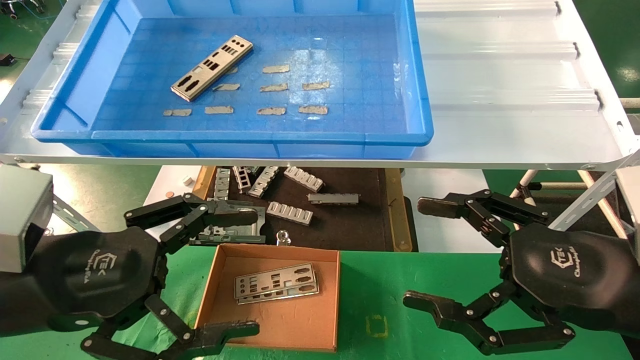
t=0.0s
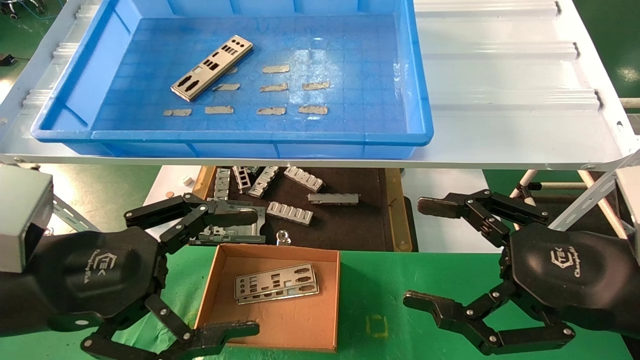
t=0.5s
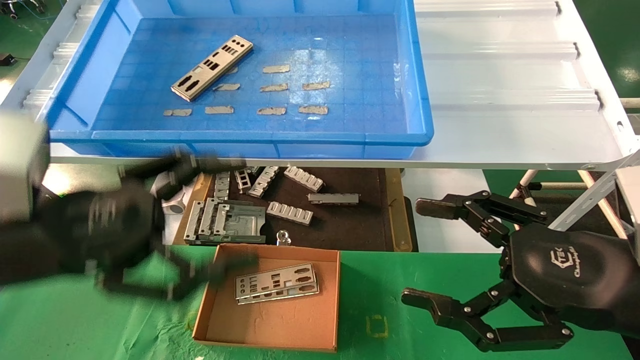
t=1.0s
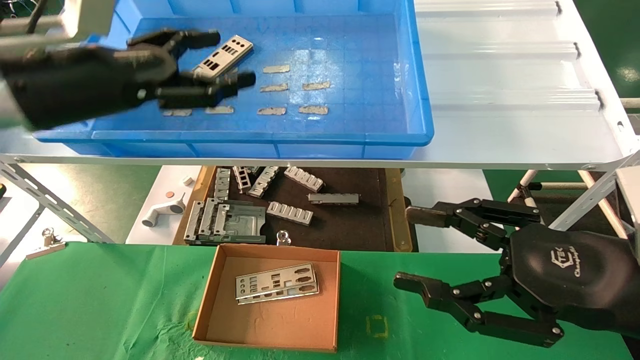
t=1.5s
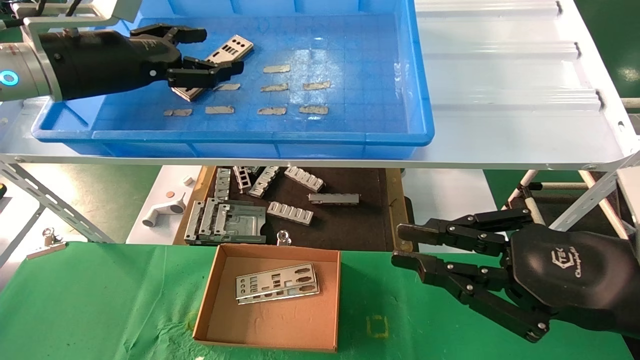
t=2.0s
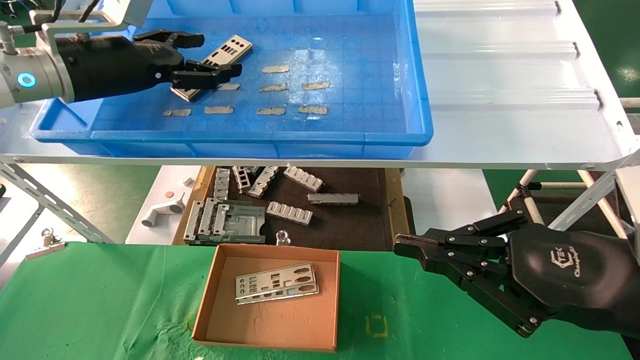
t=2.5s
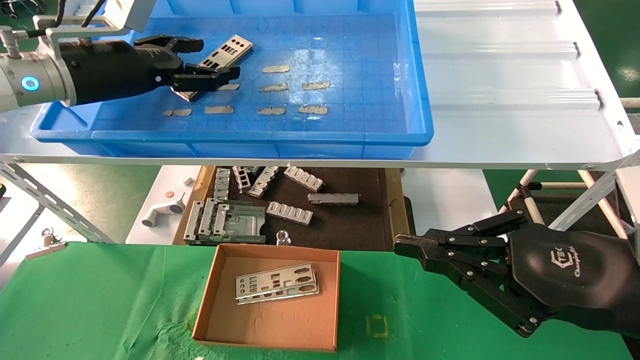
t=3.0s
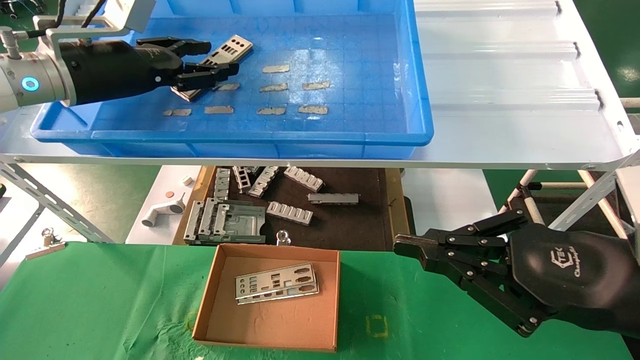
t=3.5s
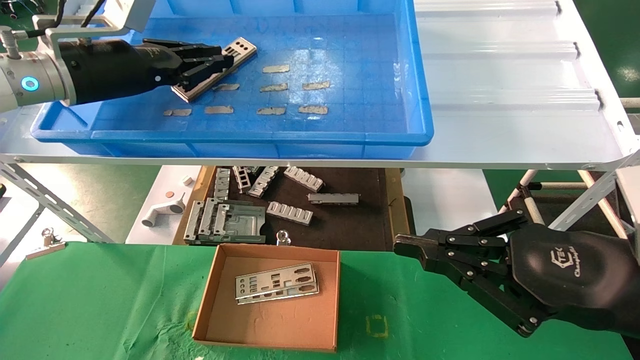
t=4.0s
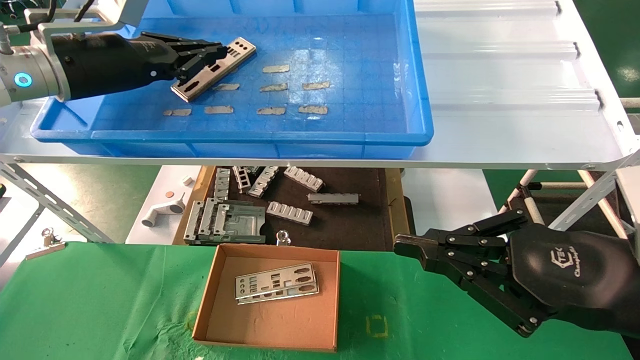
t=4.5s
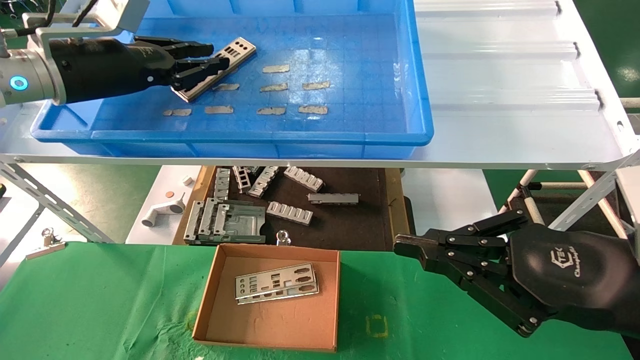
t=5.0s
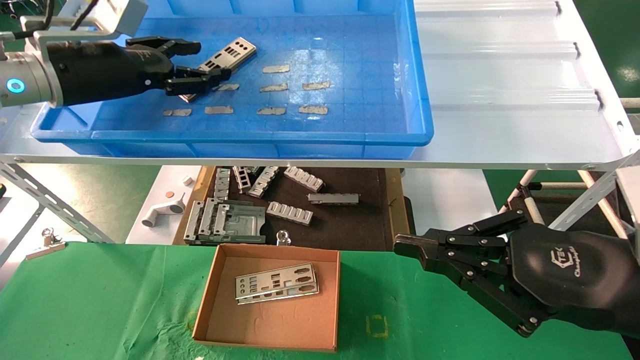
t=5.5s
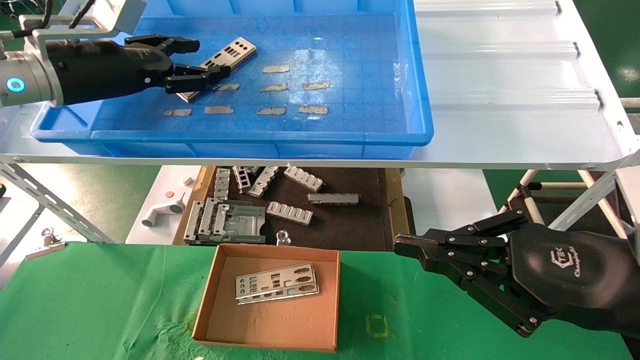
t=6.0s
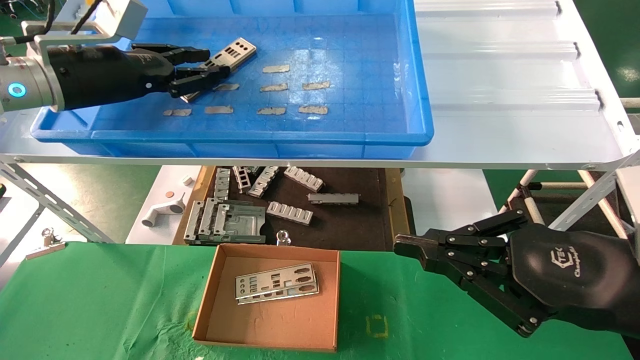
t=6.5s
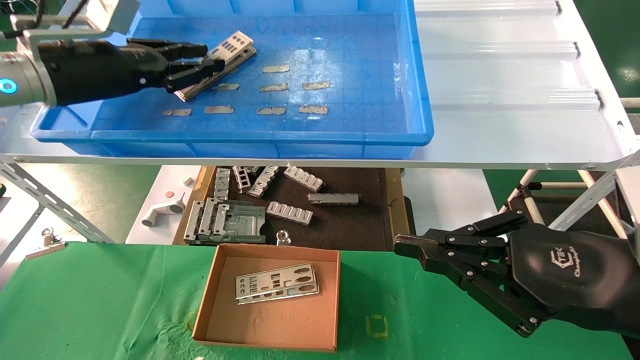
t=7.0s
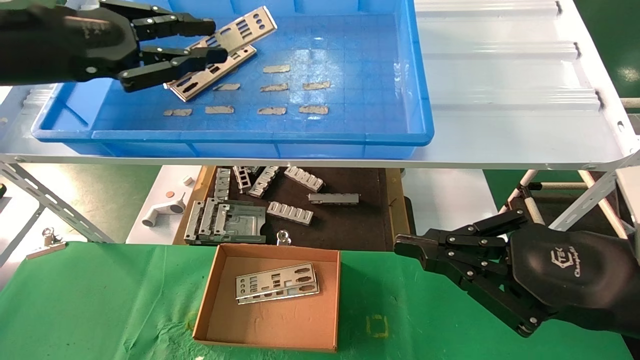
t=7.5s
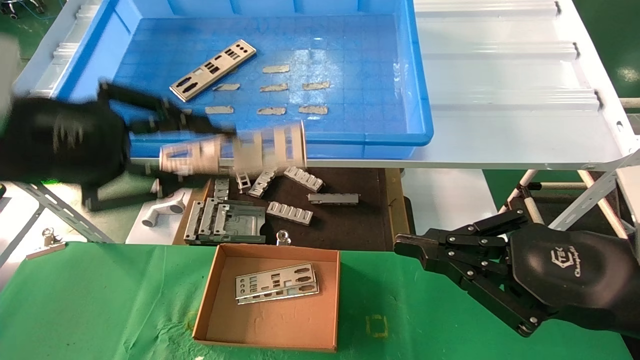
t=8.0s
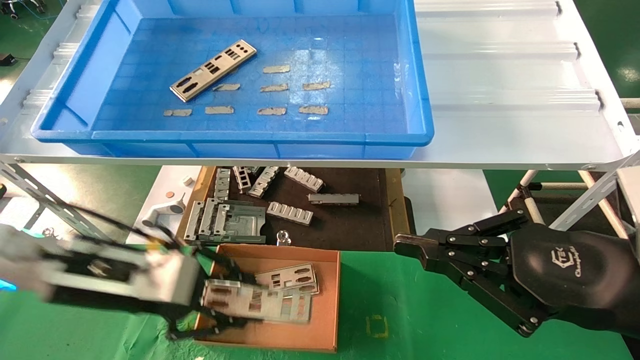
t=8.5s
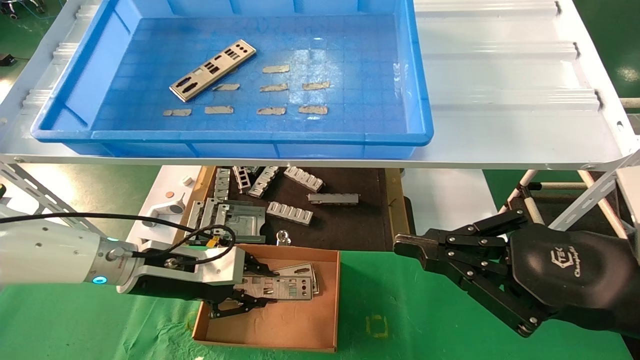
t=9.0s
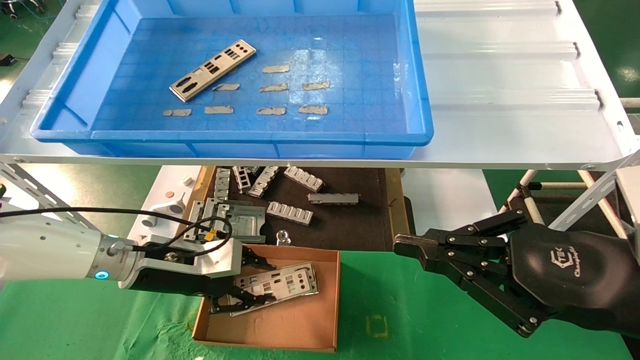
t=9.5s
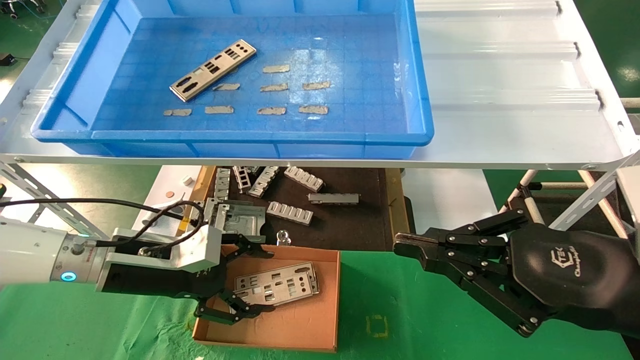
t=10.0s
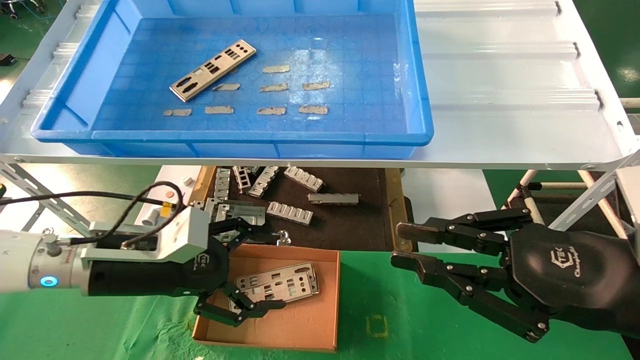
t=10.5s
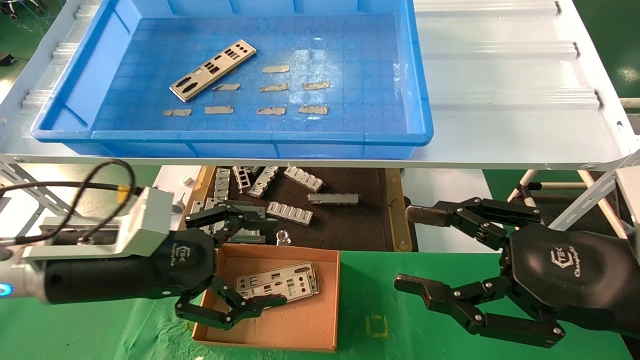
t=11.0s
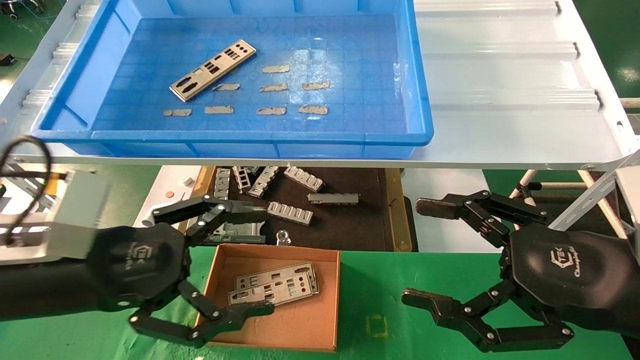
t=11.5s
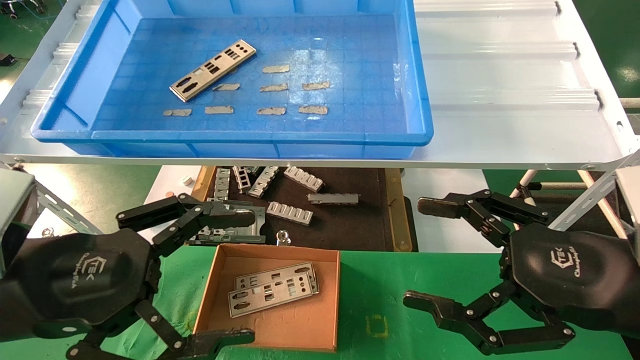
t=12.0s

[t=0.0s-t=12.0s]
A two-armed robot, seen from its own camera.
Task of the whole recording: pick up the parts on the tray and put them in the cardboard box.
Step, t=1.5s to t=6.5s: Pick up the IO bracket from the container box.
Step, t=7.0s to t=9.5s: Place the IO bracket into the ingredient slot.
t=0.0s to t=2.0s: The right gripper closes up; the left gripper goes some 25 cm forward and upward.
t=2.0s to t=4.0s: The left gripper closes up.
t=4.0s to t=6.0s: The left gripper opens.
t=6.0s to t=8.0s: The left gripper heads backward, covering some 15 cm, and closes up.
t=8.0s to t=10.0s: The left gripper goes about 20 cm downward and forward, and opens.
t=10.0s to t=12.0s: The left gripper travels backward and upward by approximately 20 cm, and opens; the right gripper opens up.

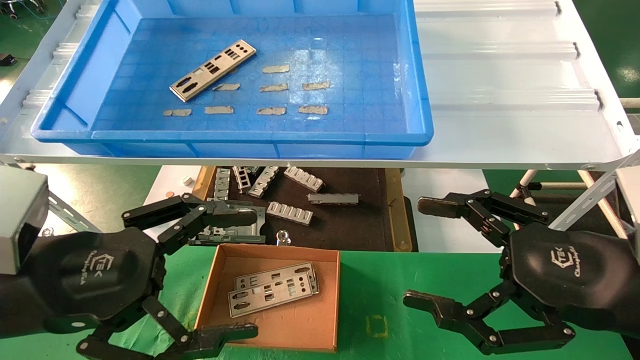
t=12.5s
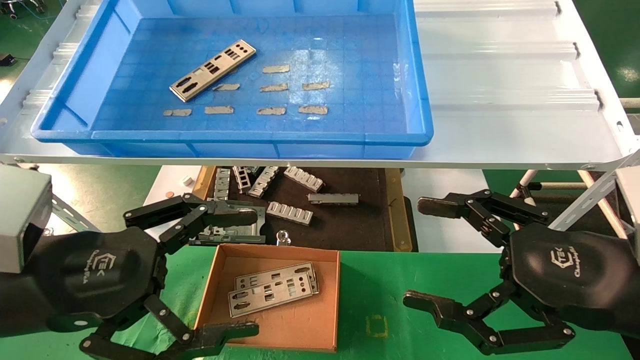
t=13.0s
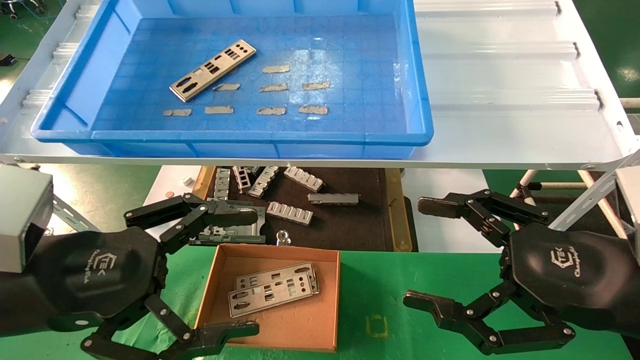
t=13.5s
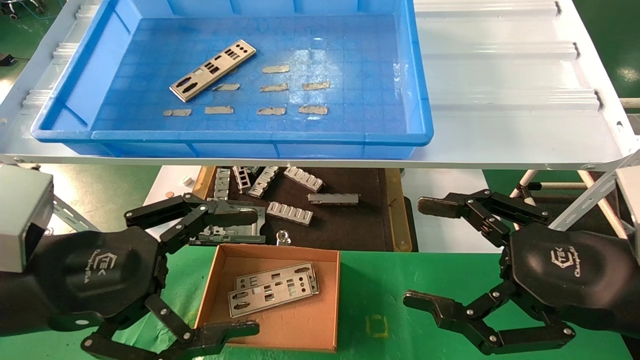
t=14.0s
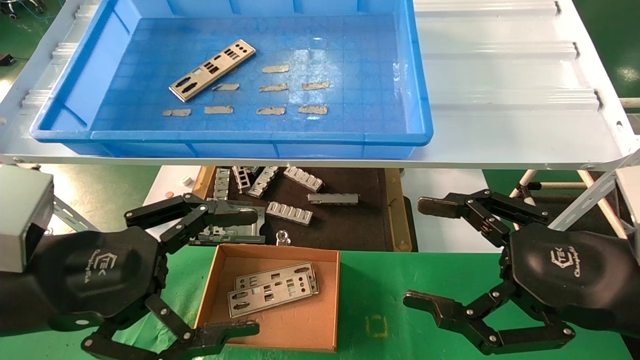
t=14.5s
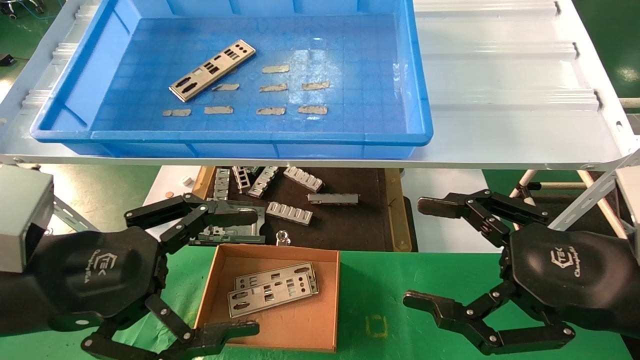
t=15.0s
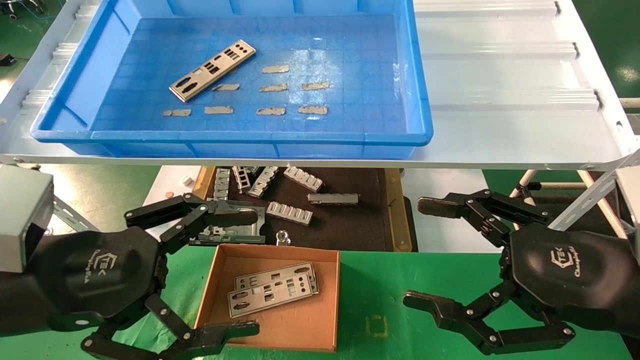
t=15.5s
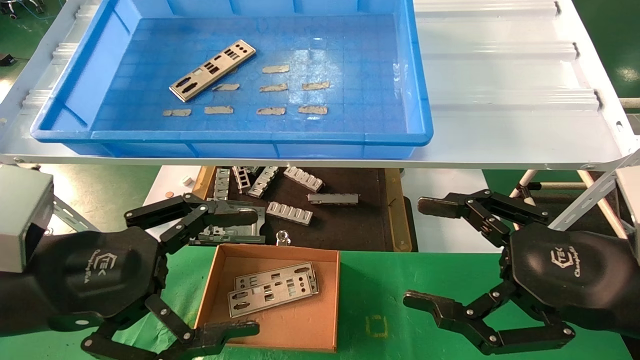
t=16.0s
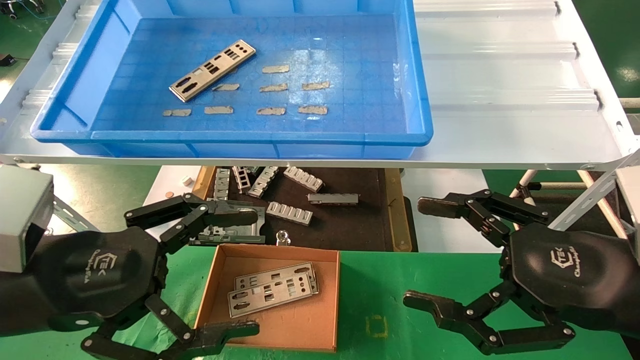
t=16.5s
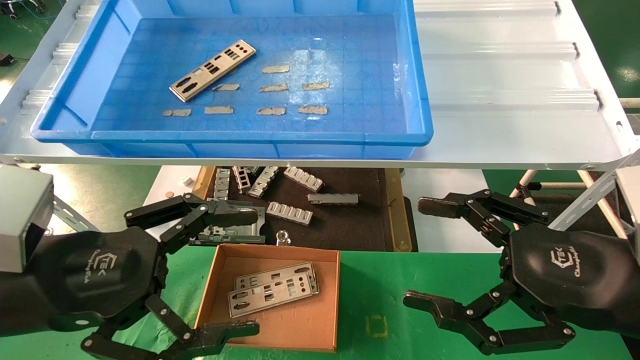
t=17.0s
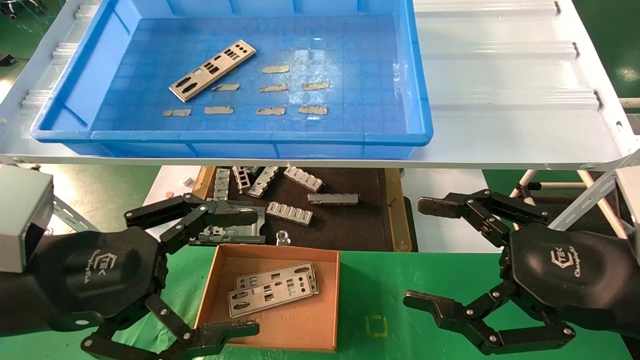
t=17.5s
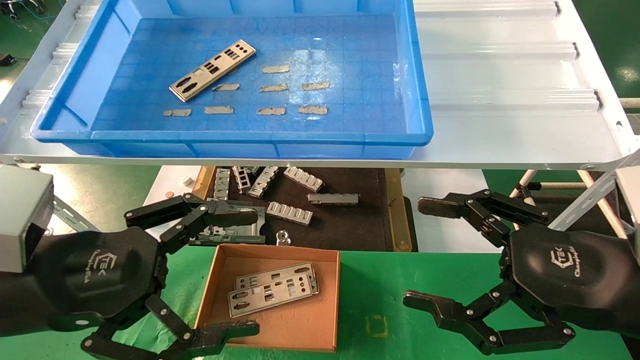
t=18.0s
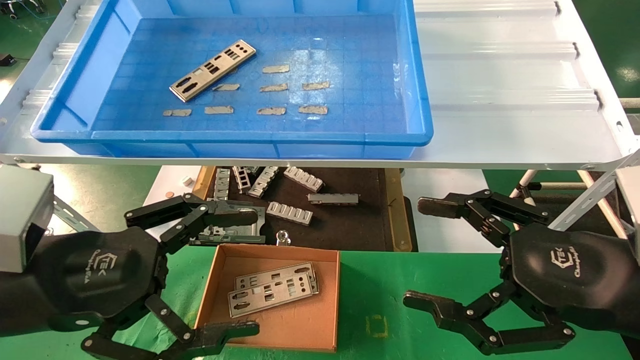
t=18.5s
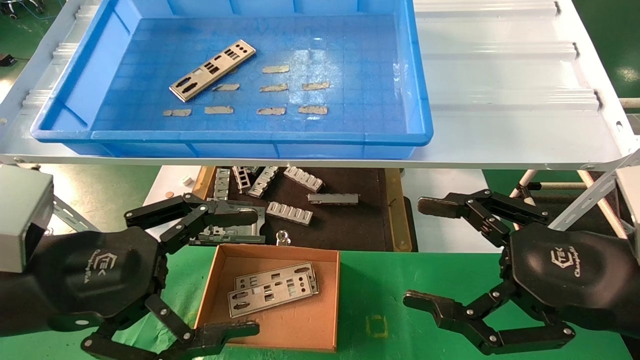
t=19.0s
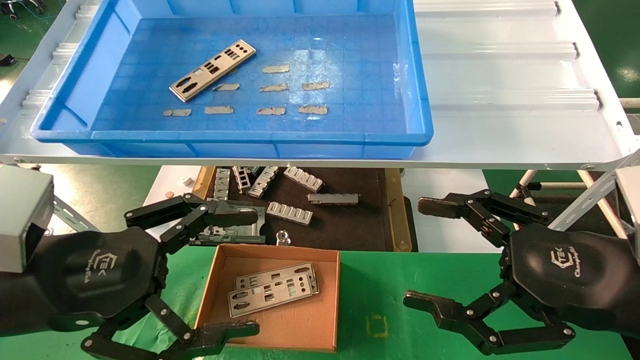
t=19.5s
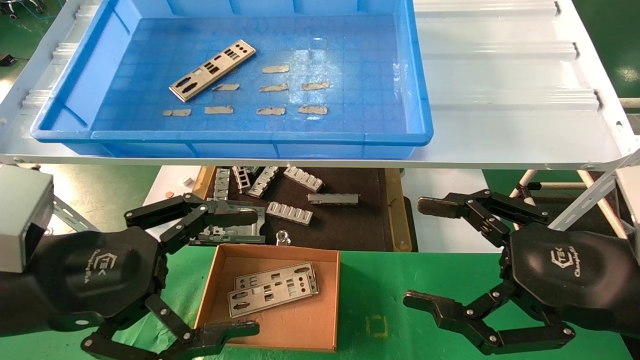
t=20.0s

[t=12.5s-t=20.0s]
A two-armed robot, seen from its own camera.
Task of the whole recording: pick up the parts on the tray and put them in the cardboard box.
t=12.5s to t=20.0s: The two grippers keep their place.
